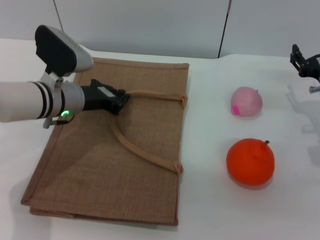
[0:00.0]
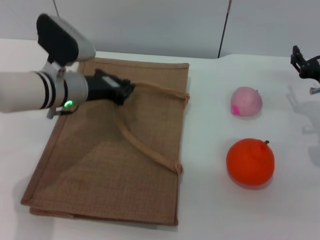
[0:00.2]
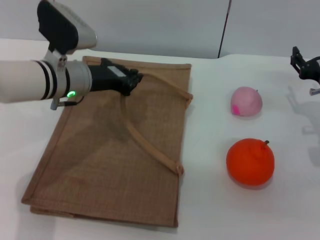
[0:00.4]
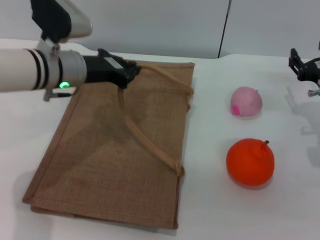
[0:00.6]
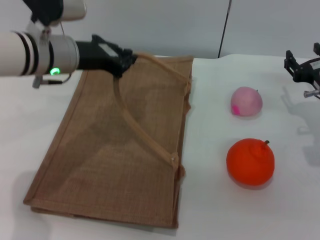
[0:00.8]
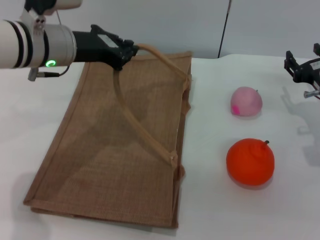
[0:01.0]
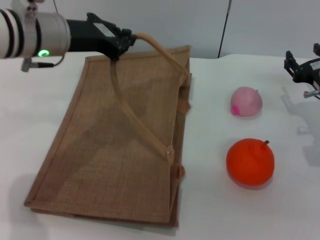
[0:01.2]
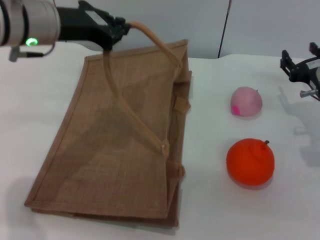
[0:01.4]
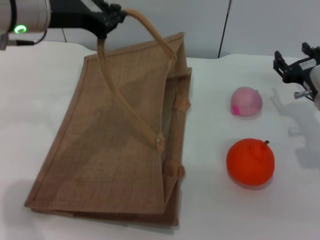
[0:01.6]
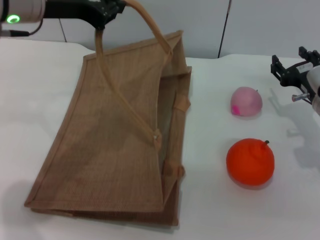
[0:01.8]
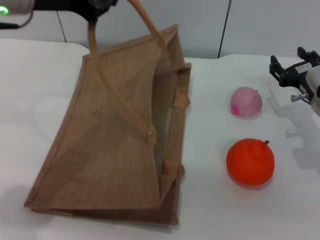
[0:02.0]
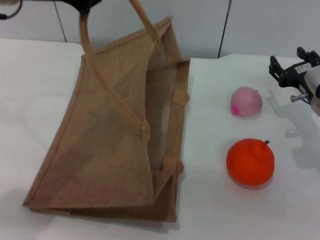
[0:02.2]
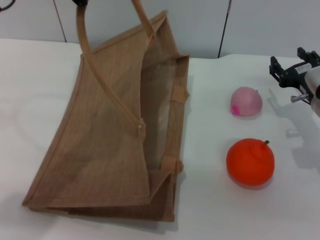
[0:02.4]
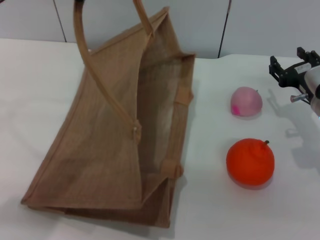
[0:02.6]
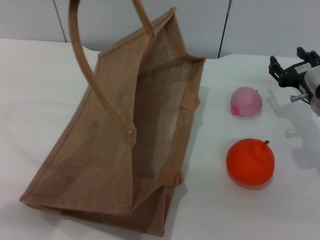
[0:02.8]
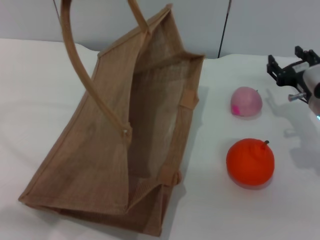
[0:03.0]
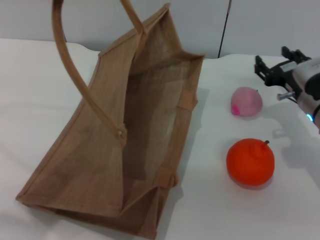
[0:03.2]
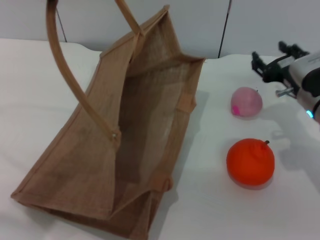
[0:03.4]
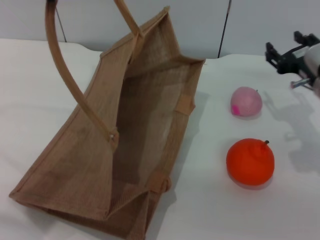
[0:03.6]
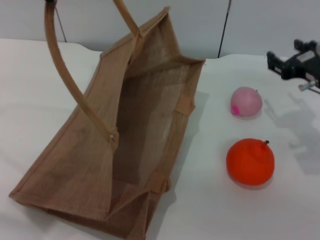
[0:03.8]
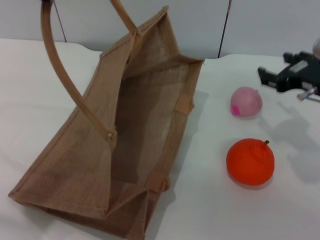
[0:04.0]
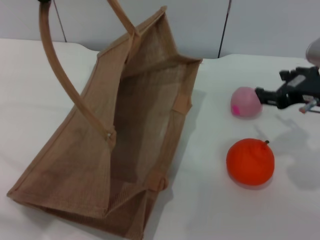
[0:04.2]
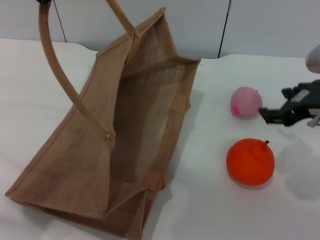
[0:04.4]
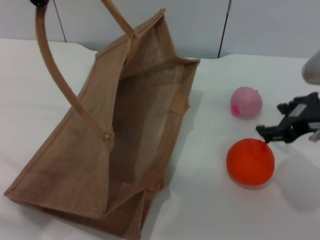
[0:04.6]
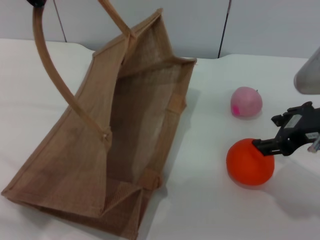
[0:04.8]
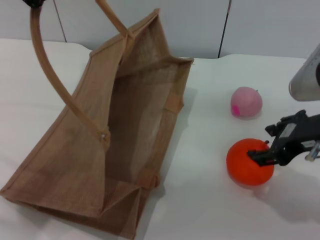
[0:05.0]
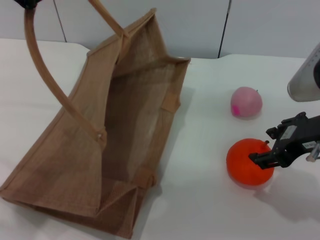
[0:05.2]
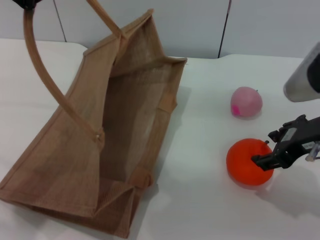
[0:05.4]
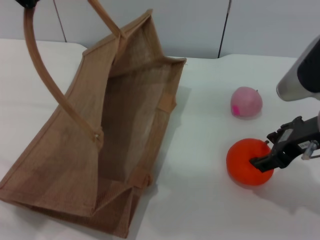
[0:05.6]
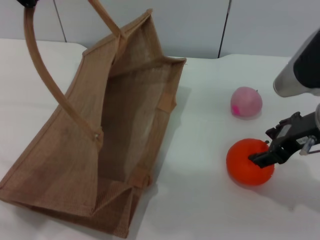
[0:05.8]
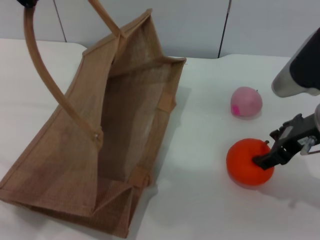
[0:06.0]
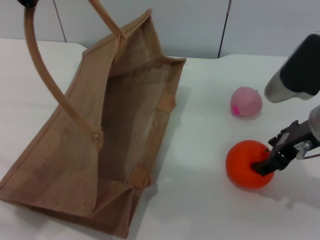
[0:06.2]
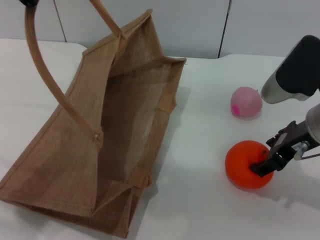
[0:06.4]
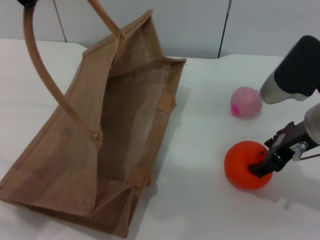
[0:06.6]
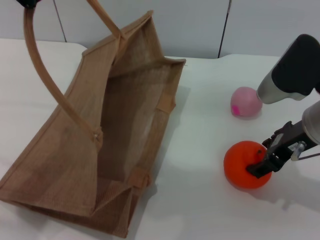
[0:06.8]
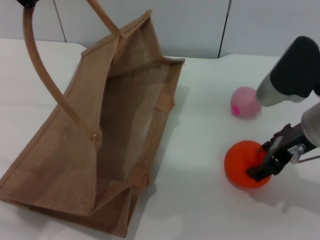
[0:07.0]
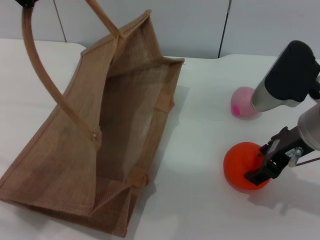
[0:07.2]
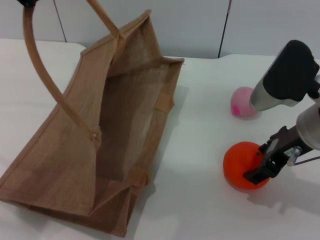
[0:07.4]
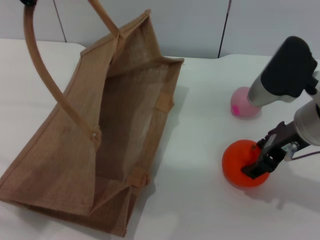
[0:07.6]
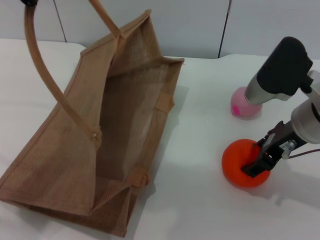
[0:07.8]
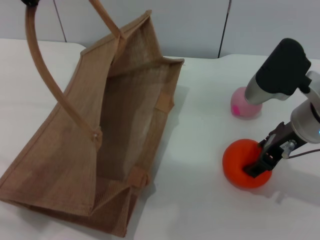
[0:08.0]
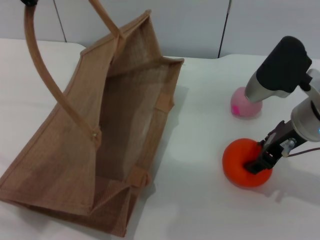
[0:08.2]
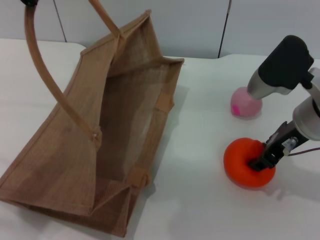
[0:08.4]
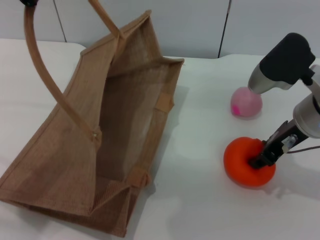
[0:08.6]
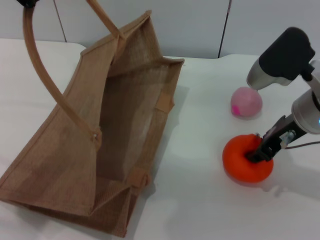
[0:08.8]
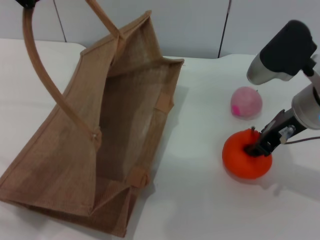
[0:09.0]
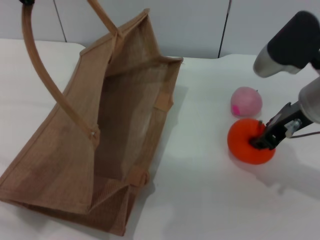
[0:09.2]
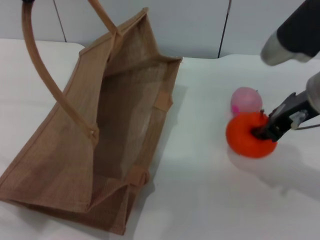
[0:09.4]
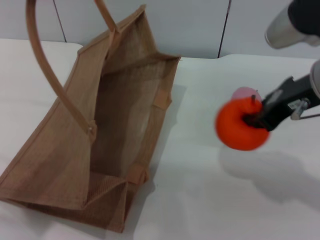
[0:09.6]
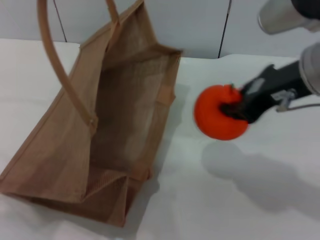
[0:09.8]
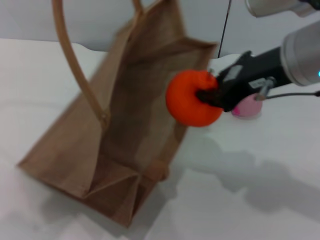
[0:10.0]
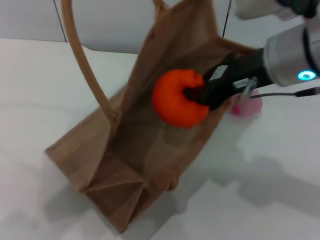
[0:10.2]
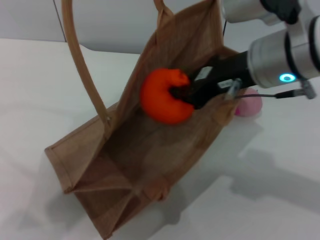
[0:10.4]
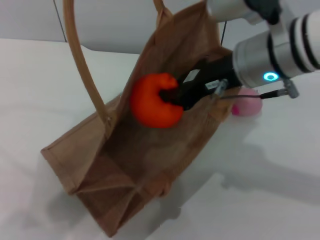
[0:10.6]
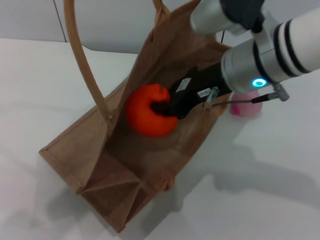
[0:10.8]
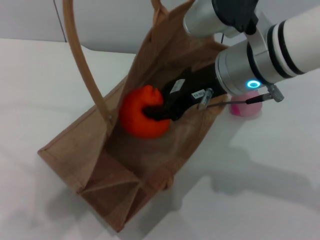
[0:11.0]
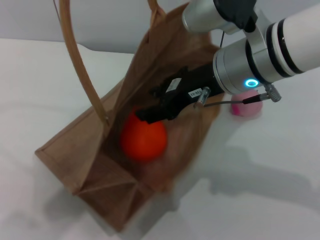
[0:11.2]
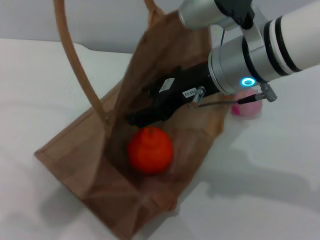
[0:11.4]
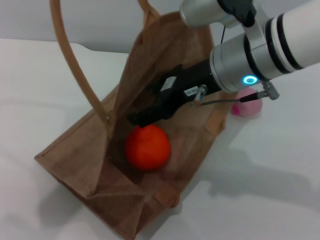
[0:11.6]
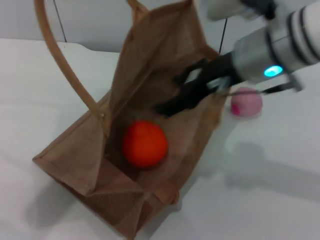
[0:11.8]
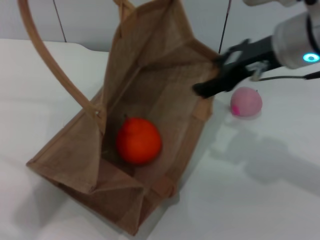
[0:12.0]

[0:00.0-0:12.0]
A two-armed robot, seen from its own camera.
Task of the whole recording: pick up the orange and peach from the table and place it in the brown handbag.
Step, 0:00.0 to 0:03.0: Lift the woven bag with the left gripper to open it.
Step, 0:03.2 to 0:09.4: Pick up the orange with the right gripper.
0:00.0 to 0:01.6: The left gripper moves upward, approximately 15 cm.
0:01.6 to 0:03.0: The left gripper moves upward and backward, roughly 10 cm.
0:03.0 to 0:04.4: The right gripper travels upward and backward by some 15 cm.
0:06.0 to 0:07.6: The grippers stay close to where they were, moving slightly.
0:07.6 to 0:09.0: The right gripper closes its fingers.
0:09.0 to 0:10.4: The right gripper travels upward and to the left by some 10 cm. The left gripper shifts by about 5 cm.
0:10.4 to 0:12.0: The left gripper ends up roughly 5 cm from where it was. The right gripper opens up.

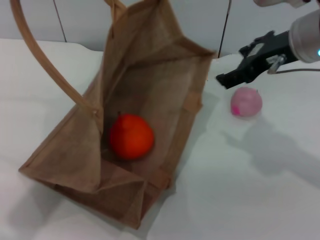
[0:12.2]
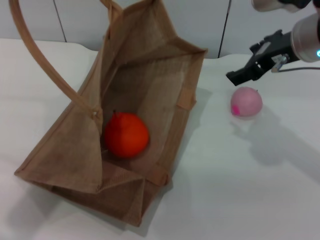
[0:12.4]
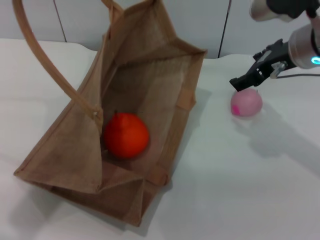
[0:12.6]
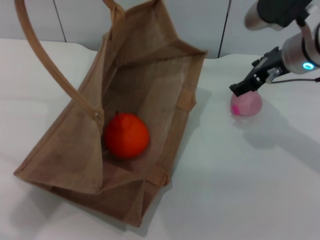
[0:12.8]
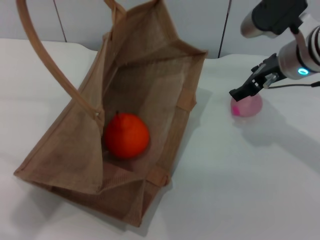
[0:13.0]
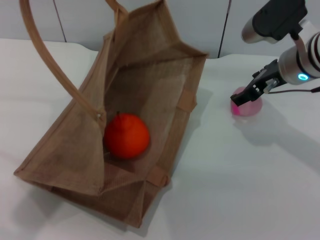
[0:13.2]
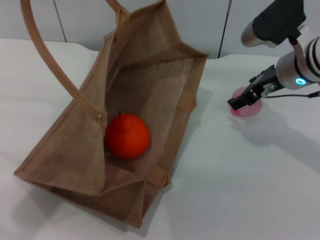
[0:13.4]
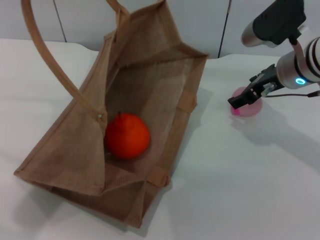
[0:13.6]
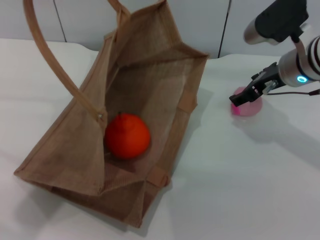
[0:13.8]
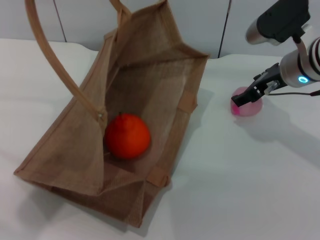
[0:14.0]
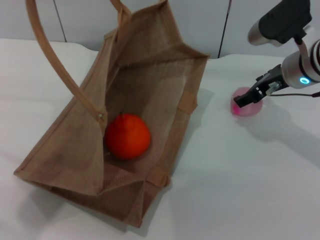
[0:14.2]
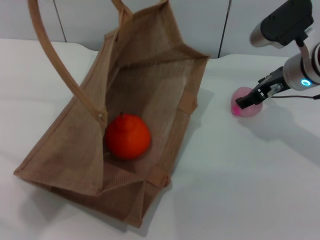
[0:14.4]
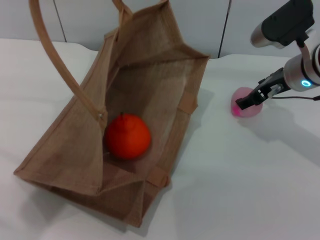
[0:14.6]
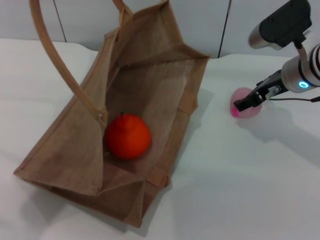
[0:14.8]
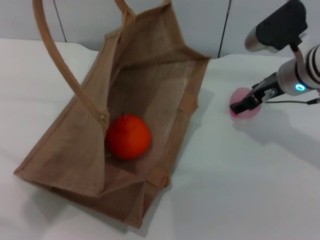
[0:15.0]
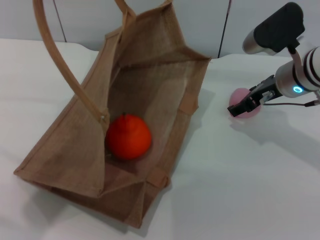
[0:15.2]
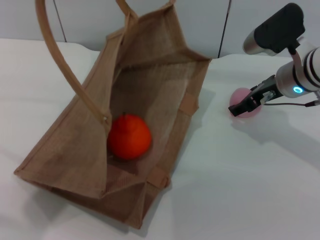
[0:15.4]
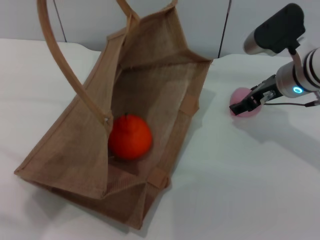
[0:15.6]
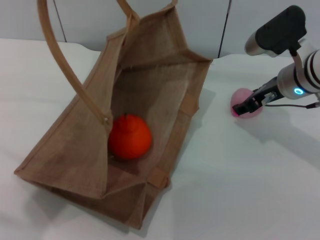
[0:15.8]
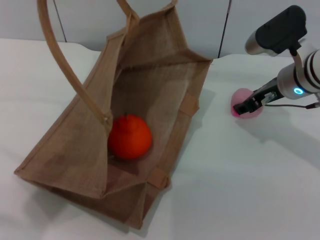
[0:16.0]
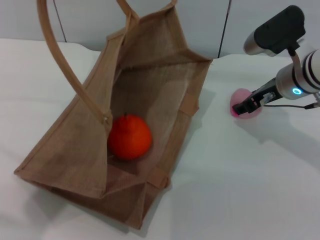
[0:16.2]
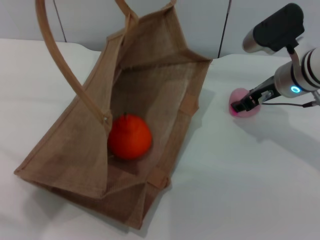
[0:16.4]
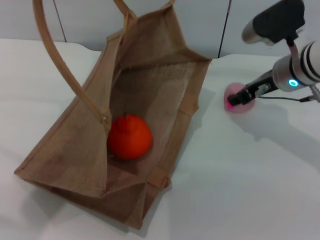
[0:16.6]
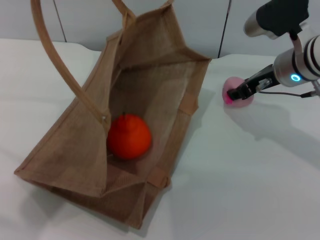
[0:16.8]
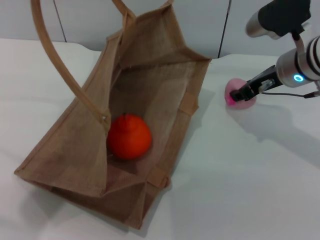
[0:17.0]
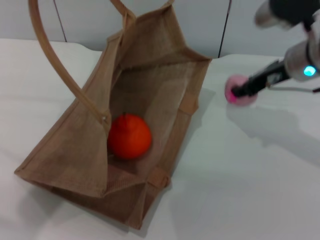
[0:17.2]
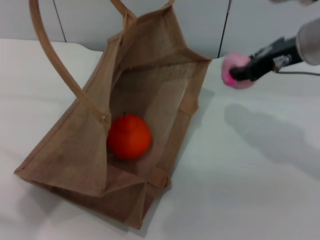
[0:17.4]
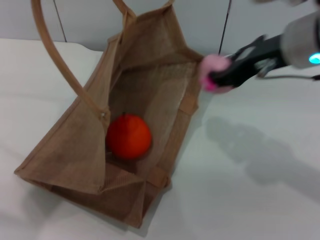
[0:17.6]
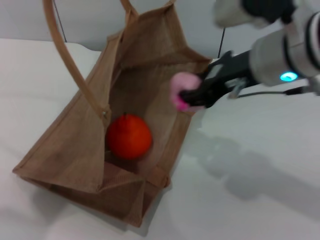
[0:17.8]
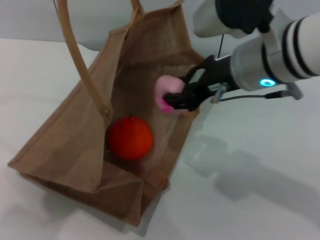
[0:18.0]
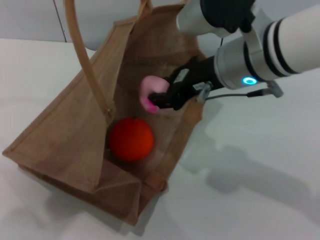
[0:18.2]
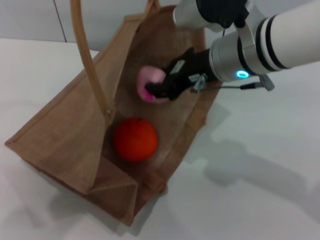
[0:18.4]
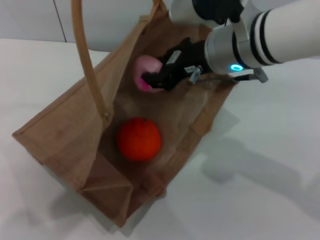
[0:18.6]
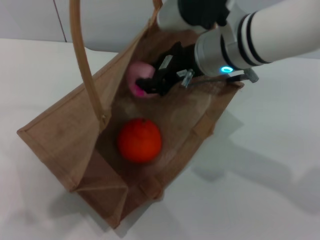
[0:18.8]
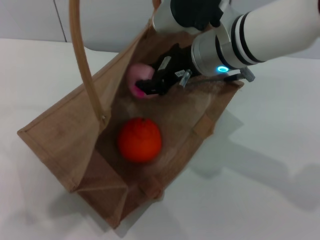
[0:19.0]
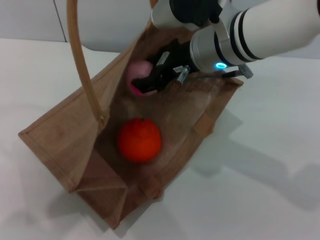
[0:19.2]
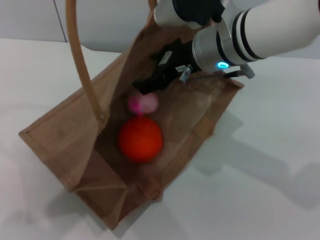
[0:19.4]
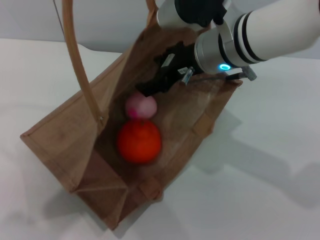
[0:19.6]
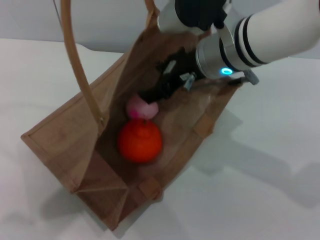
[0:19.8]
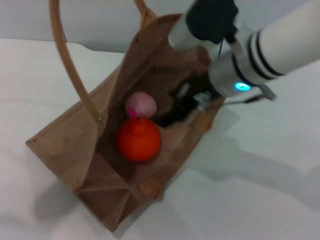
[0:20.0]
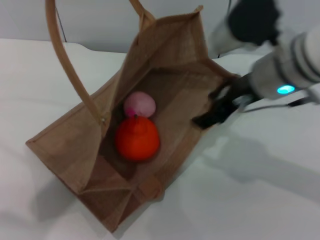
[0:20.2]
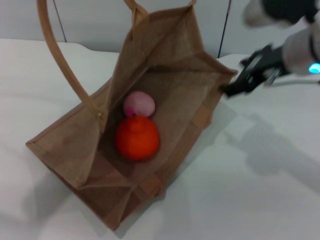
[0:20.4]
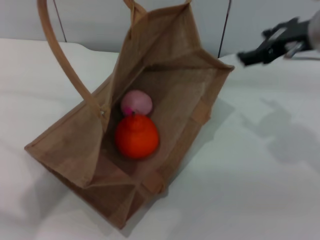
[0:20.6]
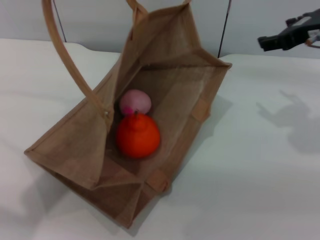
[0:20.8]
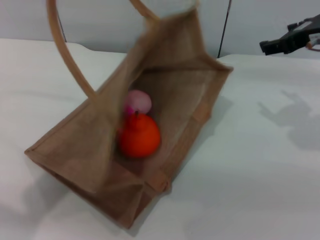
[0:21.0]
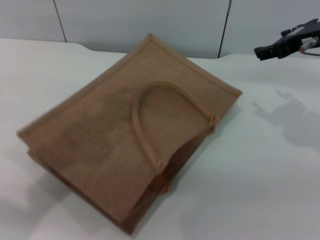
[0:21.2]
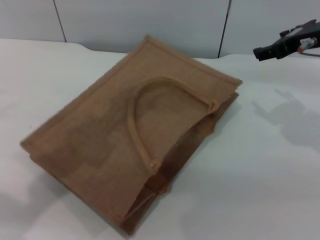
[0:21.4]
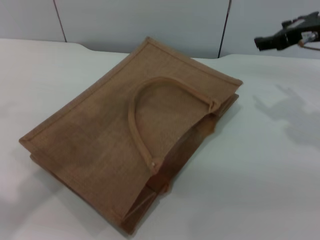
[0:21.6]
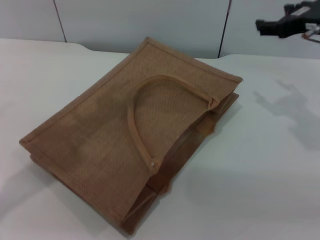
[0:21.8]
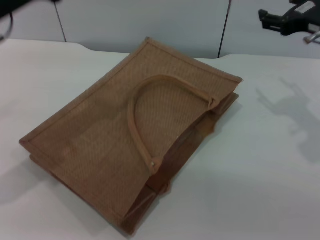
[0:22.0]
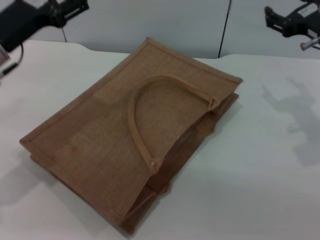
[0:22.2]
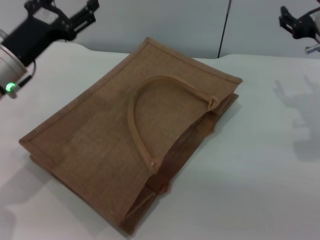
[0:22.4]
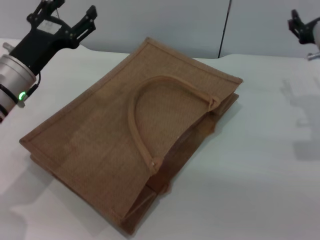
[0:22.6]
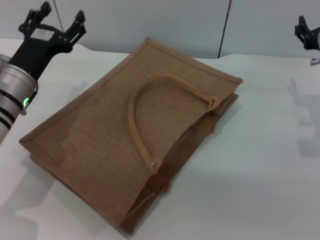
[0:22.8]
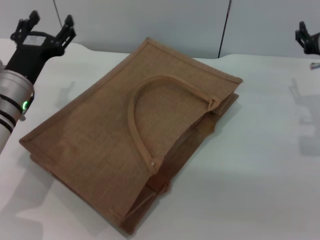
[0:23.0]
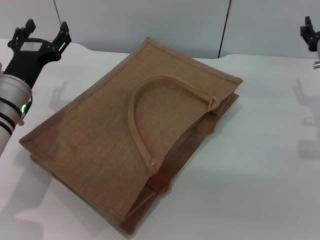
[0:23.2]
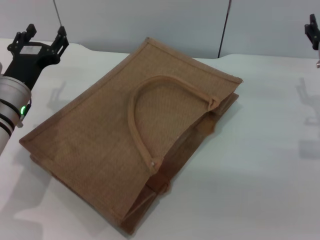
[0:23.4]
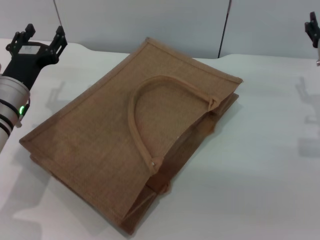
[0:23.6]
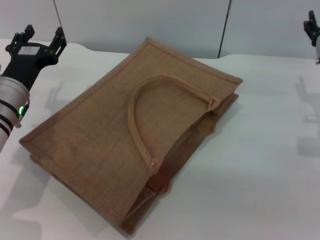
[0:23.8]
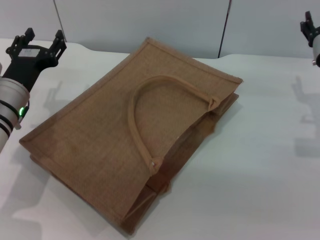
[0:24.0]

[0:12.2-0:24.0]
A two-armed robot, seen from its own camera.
Task of the whole recording: pick up the orange and peach from the table and place it in the brown handbag.
Step, 0:12.6 to 0:17.2: Pick up the peach with the right gripper.
Step, 0:17.4 to 0:20.6: Place the peach into the woven bag with the right gripper.
Step, 0:20.8 to 0:21.8: Lower the woven bag with the left gripper to close it.
0:12.2 to 0:13.6: The right gripper goes some 10 cm downward and forward.
0:13.6 to 0:15.2: The grippers make only small movements.
0:15.2 to 0:16.6: Neither gripper changes place.
0:16.6 to 0:18.2: The right gripper travels to the left, upward and backward by some 15 cm.
0:18.2 to 0:19.6: The right gripper opens its fingers.
0:19.6 to 0:21.0: The right gripper moves to the right, about 15 cm. Meanwhile the left gripper shifts by roughly 5 cm.
0:21.0 to 0:22.6: The right gripper shifts about 10 cm downward; the left gripper shifts roughly 25 cm downward, and opens its fingers.
